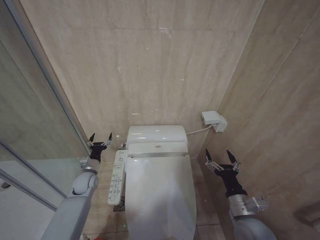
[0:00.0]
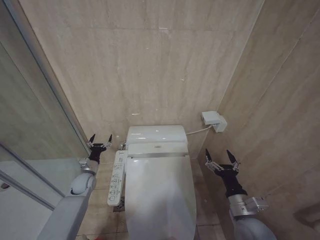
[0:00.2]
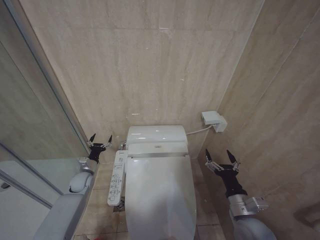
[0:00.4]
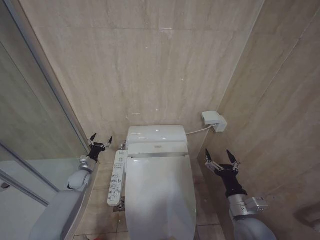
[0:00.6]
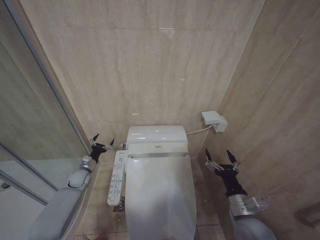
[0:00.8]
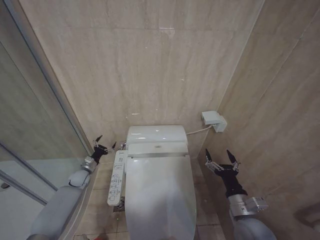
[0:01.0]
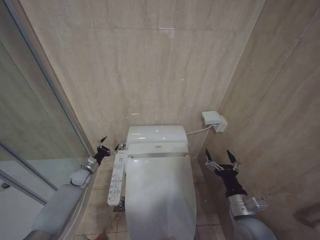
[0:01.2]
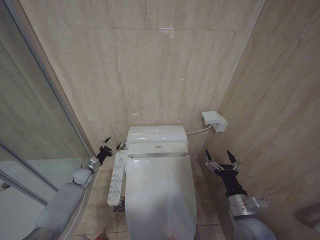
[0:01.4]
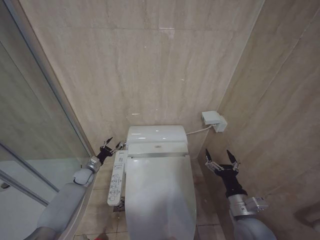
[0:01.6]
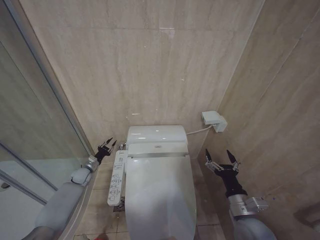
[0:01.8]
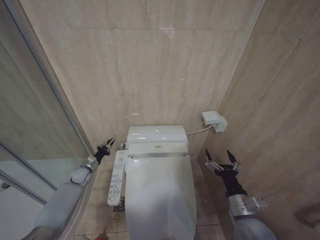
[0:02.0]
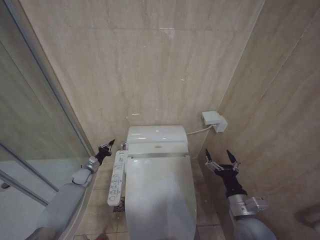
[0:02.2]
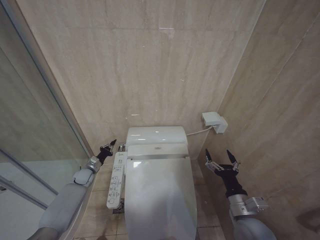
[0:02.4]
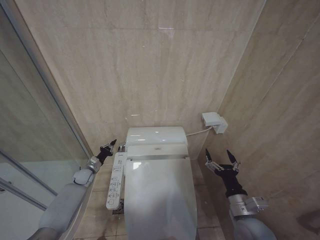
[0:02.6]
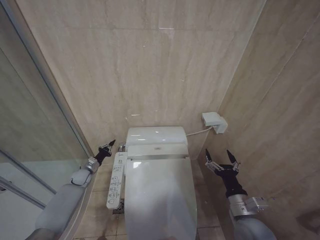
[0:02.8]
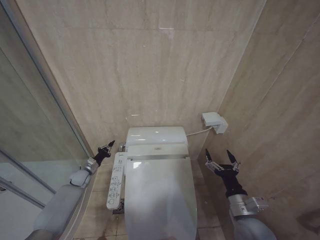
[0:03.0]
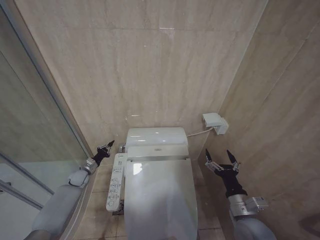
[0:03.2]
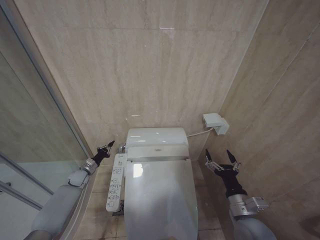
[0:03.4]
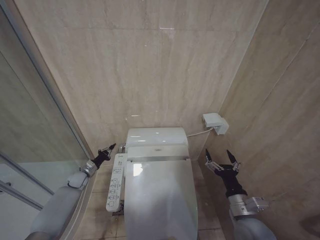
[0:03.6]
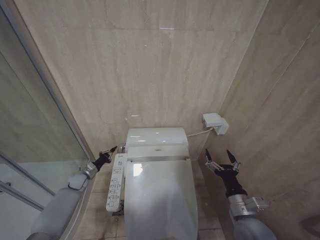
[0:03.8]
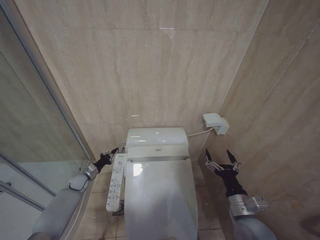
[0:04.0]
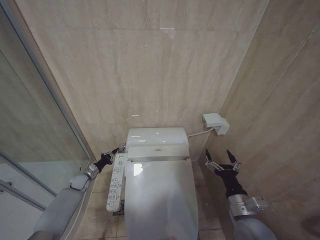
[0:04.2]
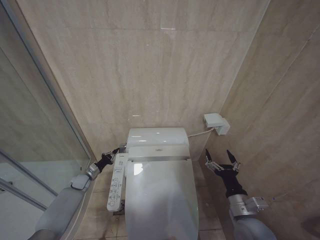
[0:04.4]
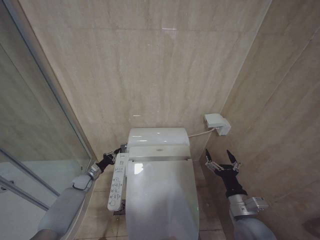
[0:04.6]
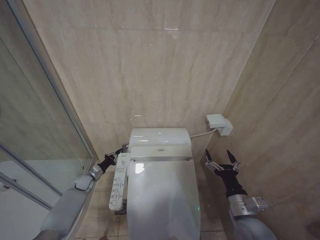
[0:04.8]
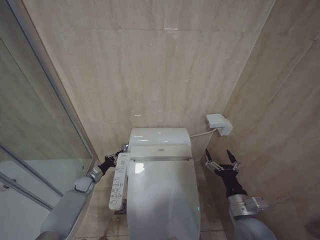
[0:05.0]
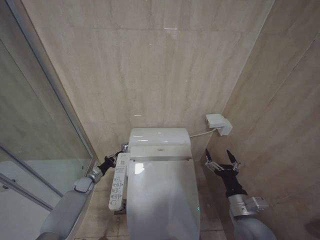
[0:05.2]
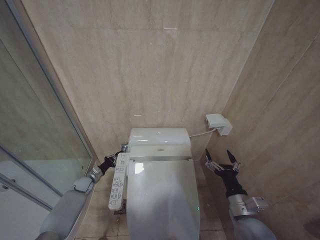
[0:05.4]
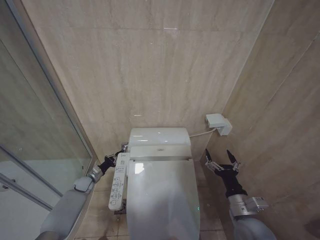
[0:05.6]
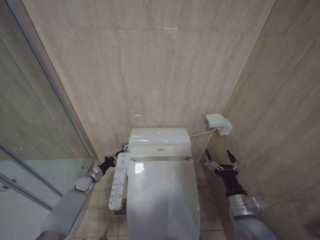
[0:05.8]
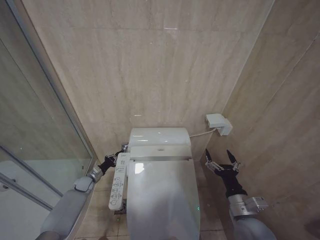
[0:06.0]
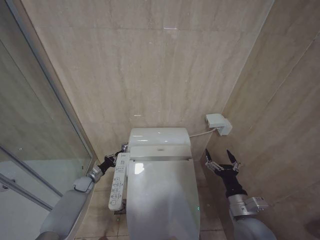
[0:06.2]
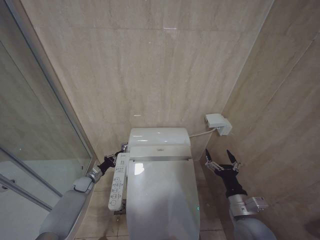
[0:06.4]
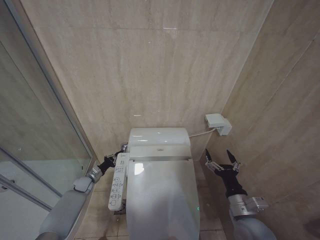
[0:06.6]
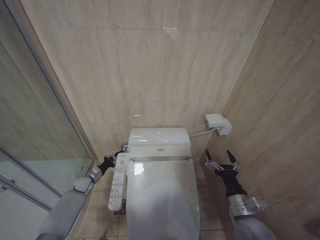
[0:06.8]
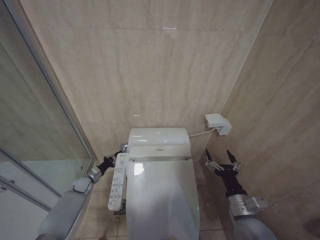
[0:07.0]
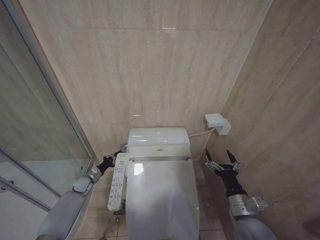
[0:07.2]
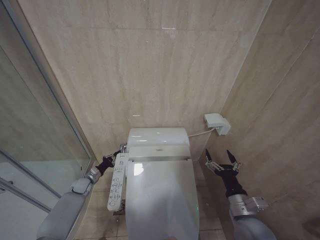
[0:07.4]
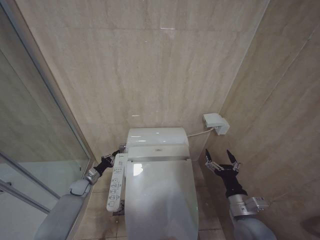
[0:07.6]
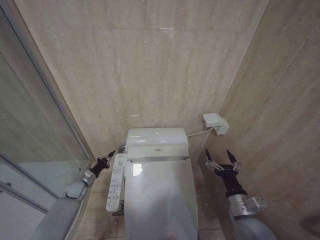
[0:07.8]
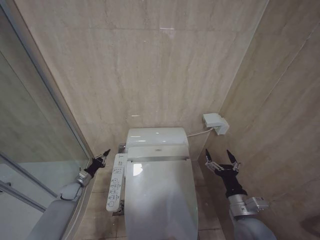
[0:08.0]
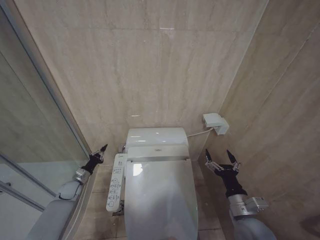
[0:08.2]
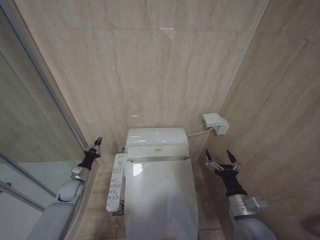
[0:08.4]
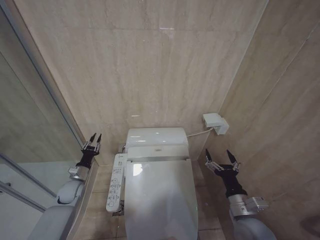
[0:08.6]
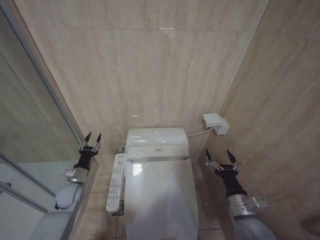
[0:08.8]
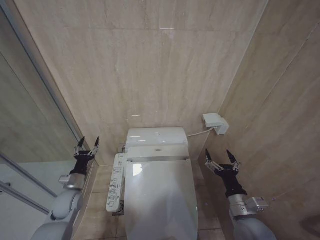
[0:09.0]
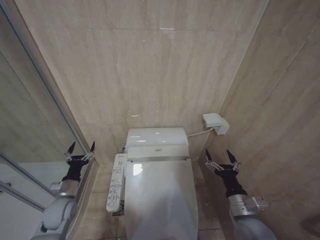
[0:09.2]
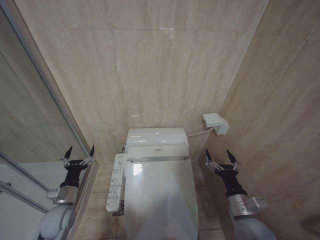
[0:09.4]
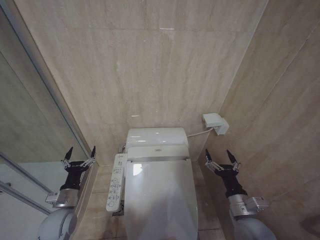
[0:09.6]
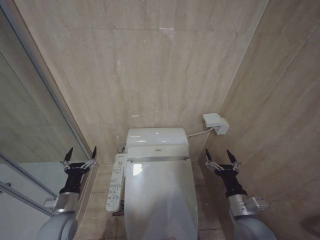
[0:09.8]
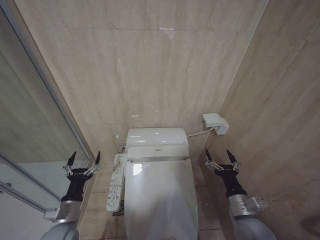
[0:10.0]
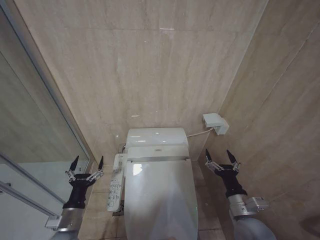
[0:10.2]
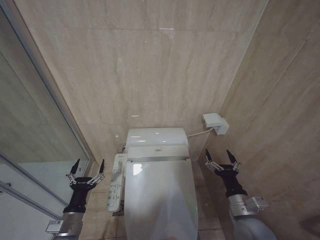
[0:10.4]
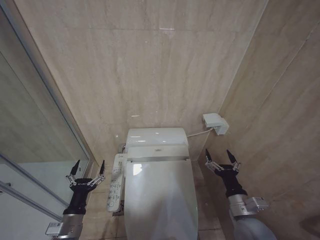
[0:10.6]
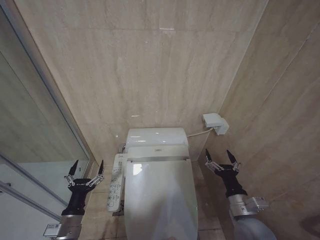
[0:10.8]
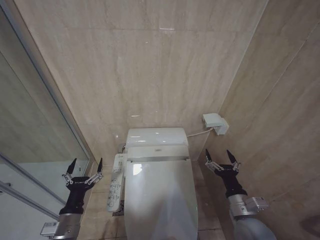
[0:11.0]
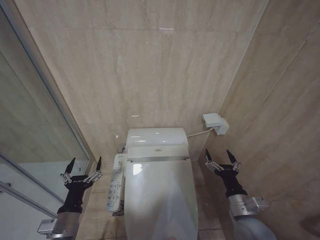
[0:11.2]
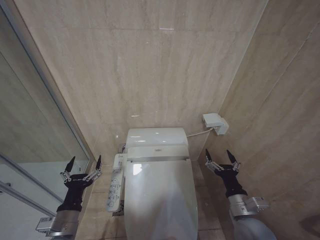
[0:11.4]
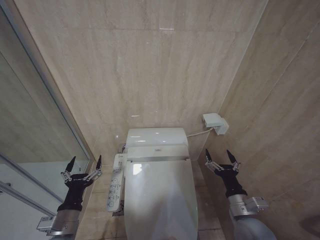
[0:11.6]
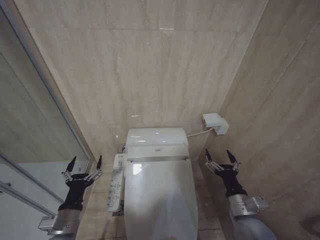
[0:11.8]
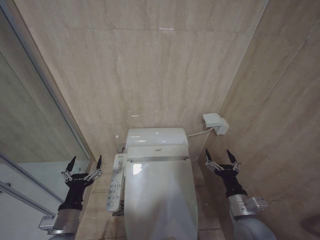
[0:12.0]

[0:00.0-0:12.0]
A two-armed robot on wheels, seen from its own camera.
Task of the whole recording: Open the toilet lid, clean the toilet bowl with a toilet brush, close the toilet lid, and flush.
0:00.0 to 0:01.6: The left gripper heads downward, forward and to the left, covering roughly 10 cm.
0:01.6 to 0:03.0: The left gripper closes.
0:03.0 to 0:07.6: The grippers make only small movements.
0:07.6 to 0:09.0: The left gripper goes some 15 cm upward and backward, and opens up.
0:09.0 to 0:10.4: The left gripper shifts approximately 15 cm backward, and opens its fingers.
0:10.4 to 0:12.0: The grippers make only small movements.

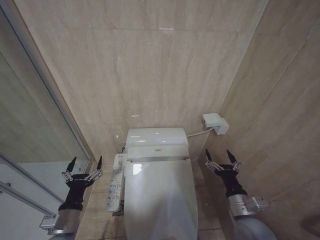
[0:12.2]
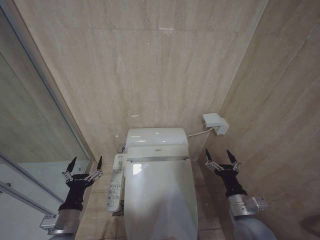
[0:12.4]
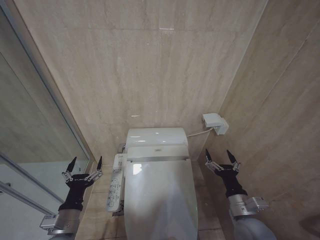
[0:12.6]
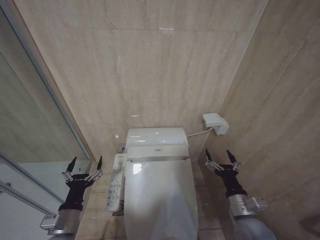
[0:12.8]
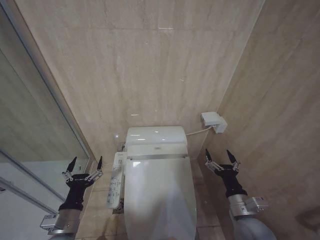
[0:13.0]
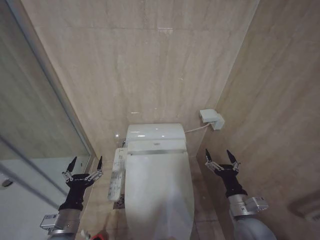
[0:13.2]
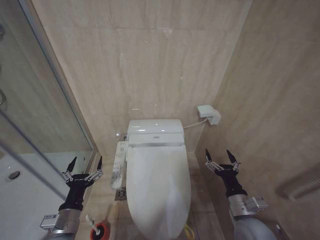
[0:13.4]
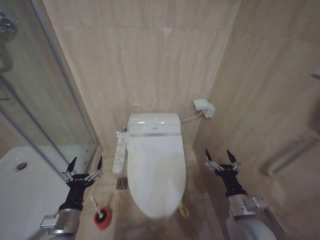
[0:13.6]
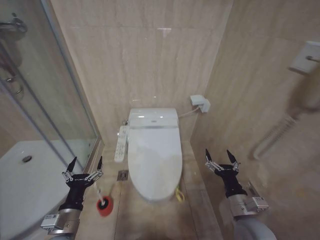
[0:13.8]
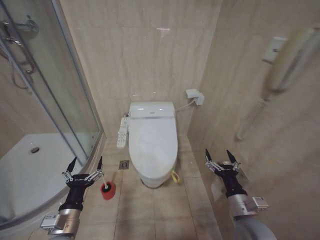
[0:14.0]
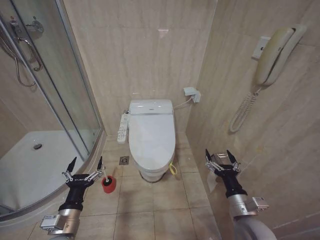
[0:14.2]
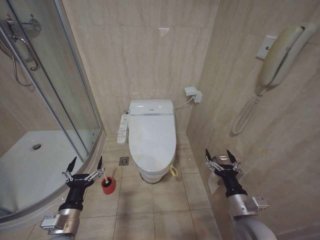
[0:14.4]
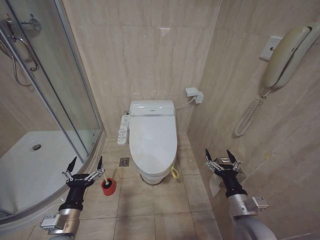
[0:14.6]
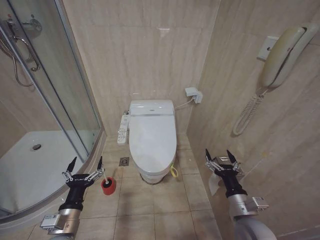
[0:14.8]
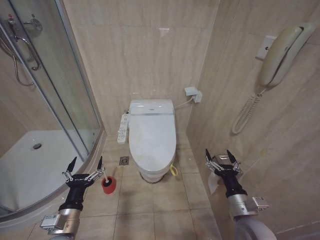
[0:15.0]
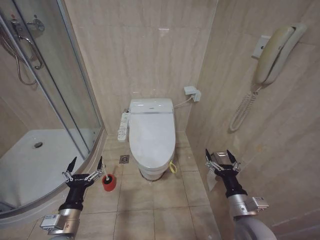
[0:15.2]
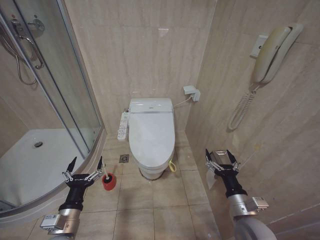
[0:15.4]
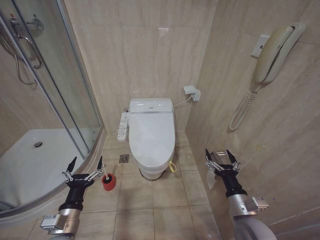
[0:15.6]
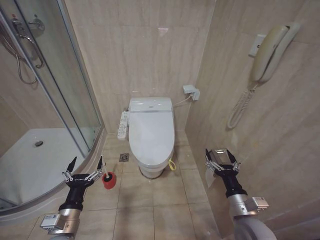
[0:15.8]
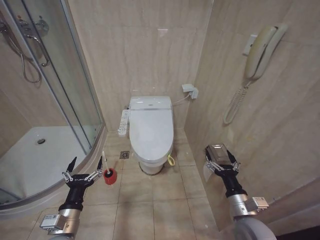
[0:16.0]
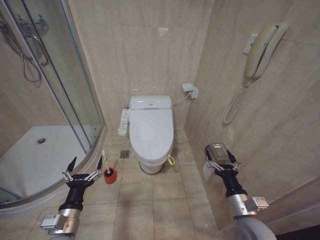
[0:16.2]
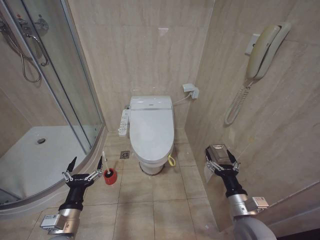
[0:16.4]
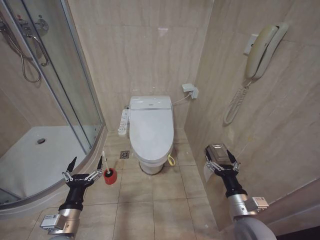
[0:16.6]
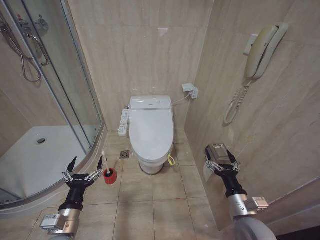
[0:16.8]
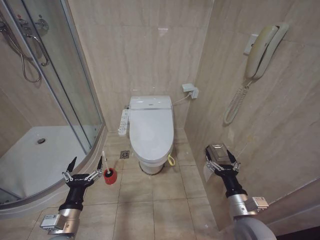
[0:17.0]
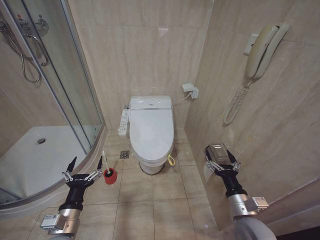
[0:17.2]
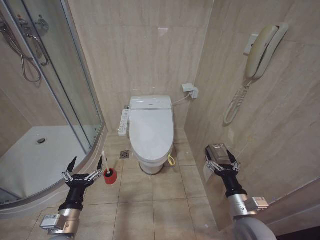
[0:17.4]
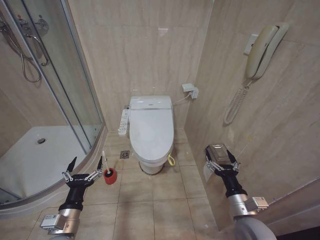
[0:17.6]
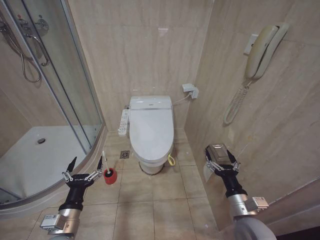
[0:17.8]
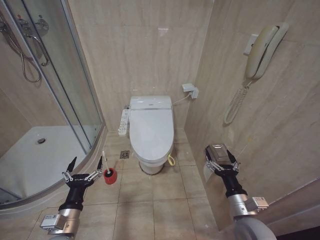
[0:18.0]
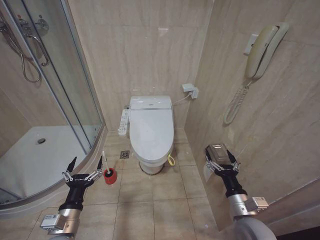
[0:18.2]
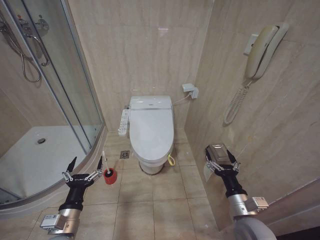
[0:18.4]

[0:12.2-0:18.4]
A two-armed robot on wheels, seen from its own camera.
Task of the whole recording: Open the toilet lid, clean the toilet bowl with a toilet brush, close the toilet lid, and flush.
0:15.4 to 0:18.4: The two grippers keep their place.

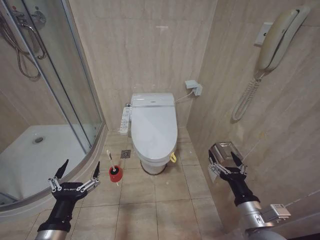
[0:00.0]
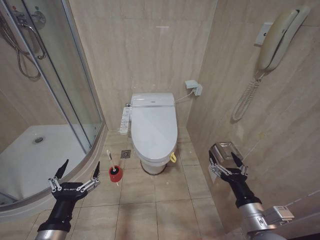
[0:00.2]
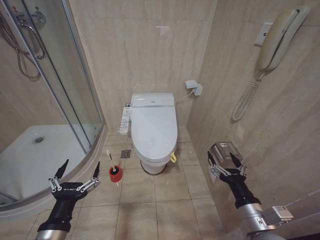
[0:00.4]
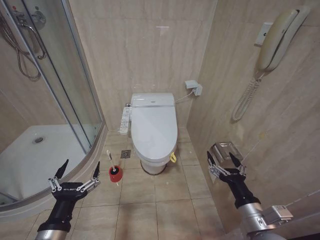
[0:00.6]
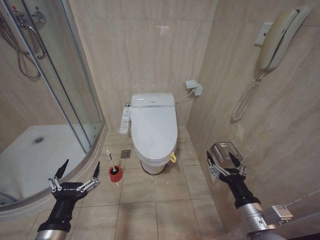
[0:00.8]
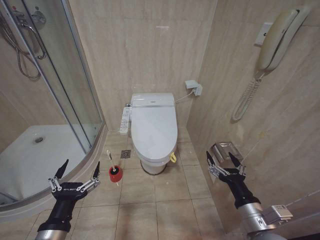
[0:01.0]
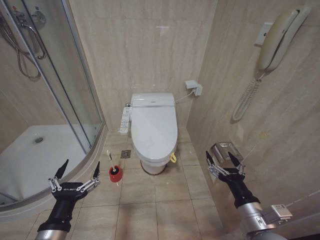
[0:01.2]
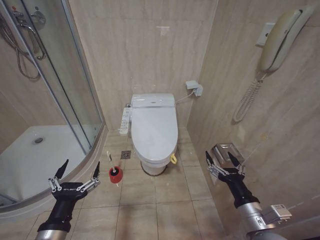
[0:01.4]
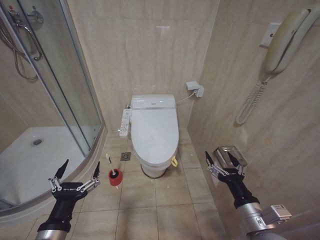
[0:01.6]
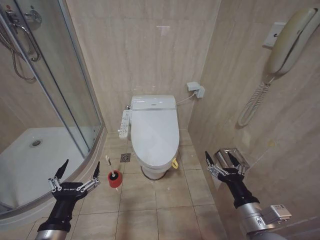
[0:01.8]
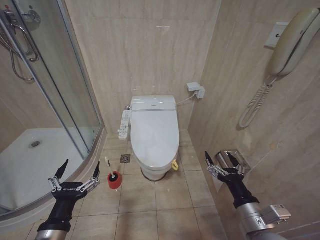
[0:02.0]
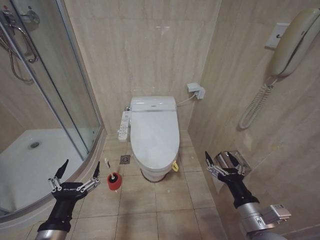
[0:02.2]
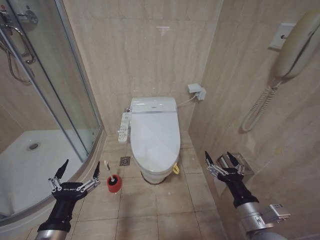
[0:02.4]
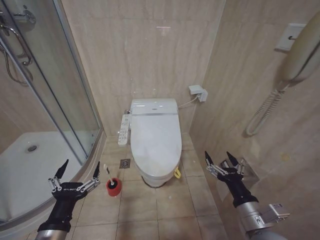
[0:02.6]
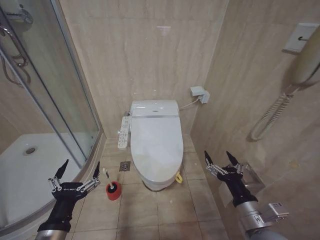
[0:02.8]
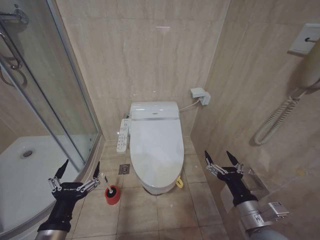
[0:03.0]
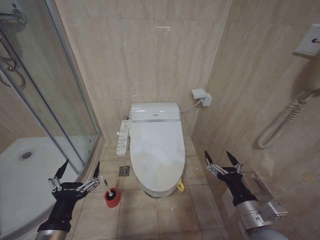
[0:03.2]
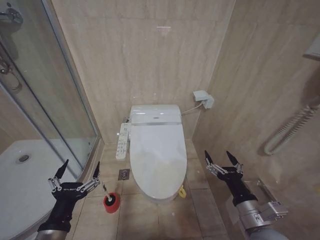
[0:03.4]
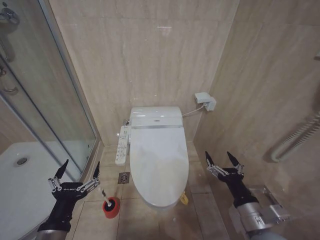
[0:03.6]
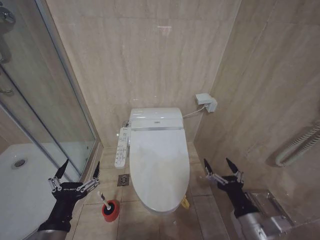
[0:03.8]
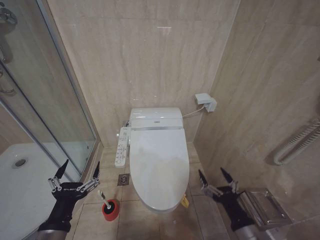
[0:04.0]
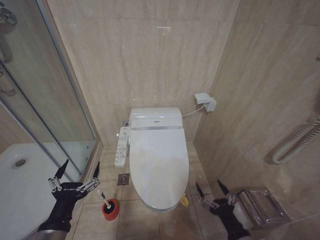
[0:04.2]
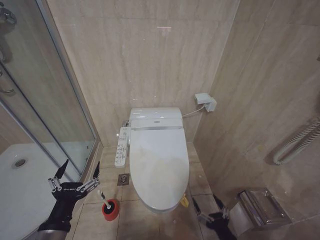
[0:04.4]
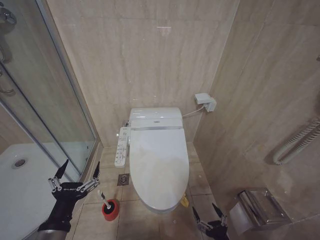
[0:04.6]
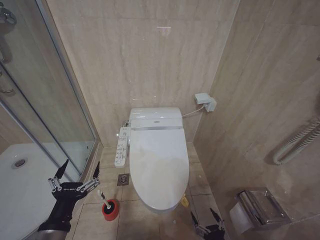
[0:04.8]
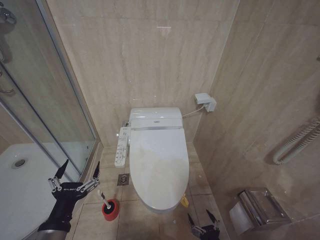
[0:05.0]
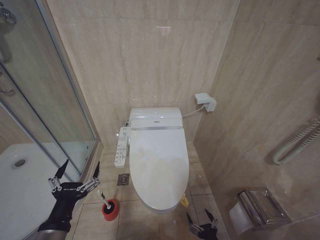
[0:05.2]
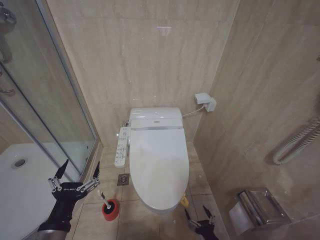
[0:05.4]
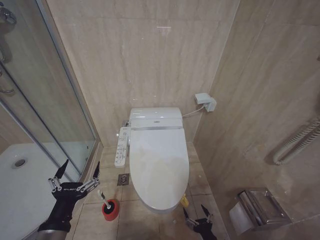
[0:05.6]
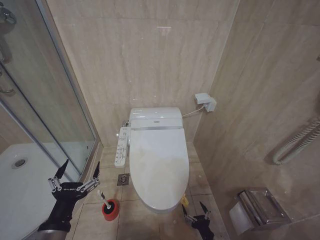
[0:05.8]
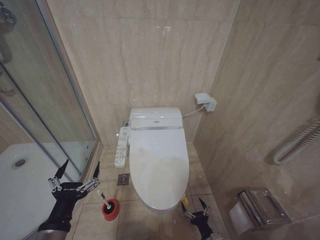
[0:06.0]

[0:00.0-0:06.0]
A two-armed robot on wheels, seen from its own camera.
Task of the whole recording: Open the toilet lid, clean the toilet bowl with a toilet brush, close the toilet lid, and flush.
0:01.6 to 0:03.0: Both grippers stay put.
0:03.0 to 0:04.4: The right gripper is displaced downward and backward by some 15 cm.
0:04.4 to 0:06.0: The right gripper is displaced downward by about 15 cm.
